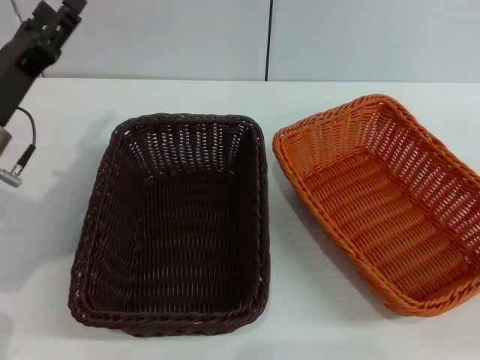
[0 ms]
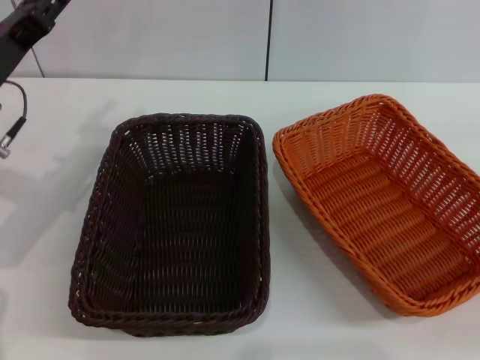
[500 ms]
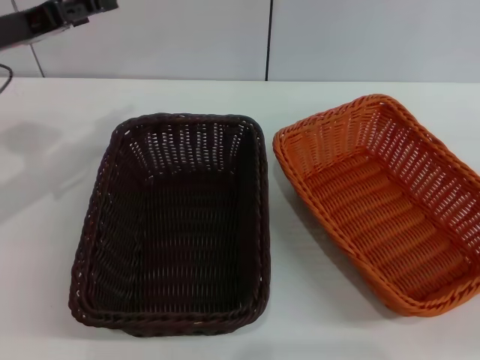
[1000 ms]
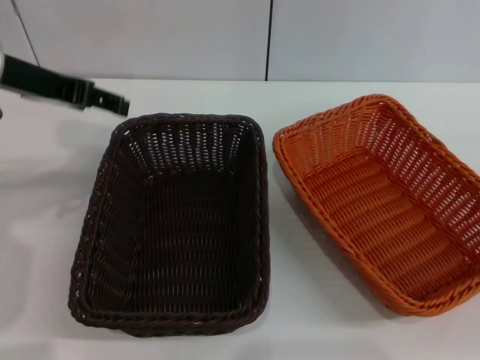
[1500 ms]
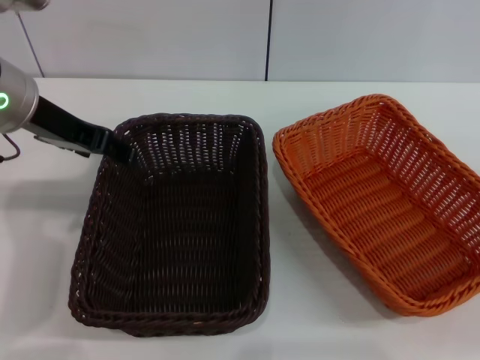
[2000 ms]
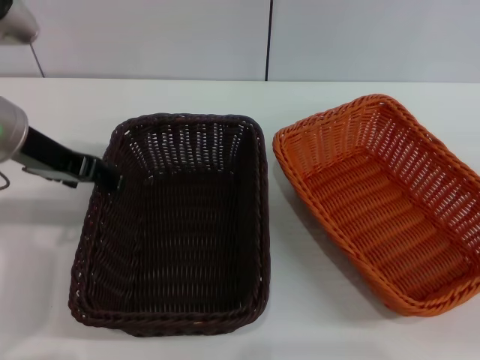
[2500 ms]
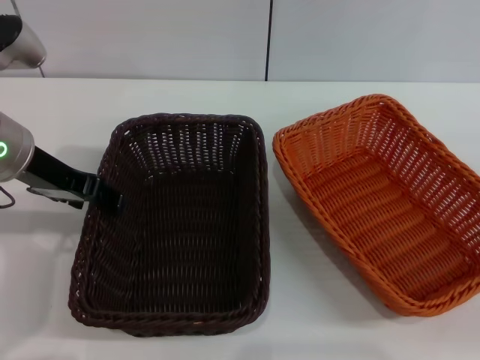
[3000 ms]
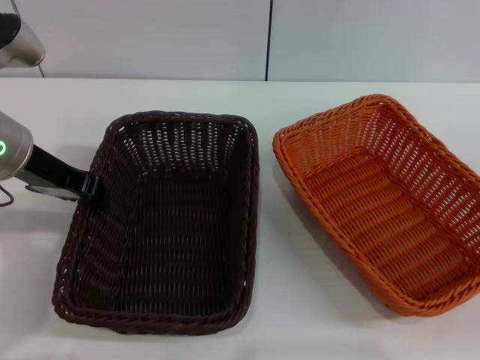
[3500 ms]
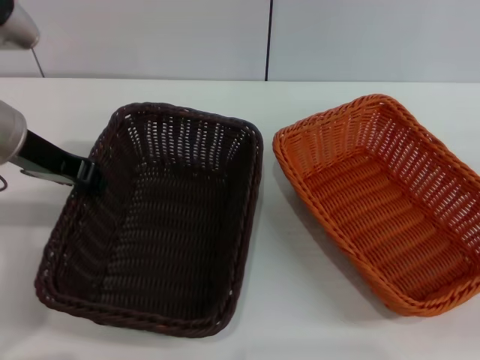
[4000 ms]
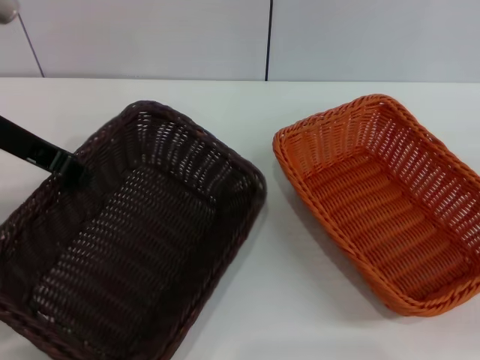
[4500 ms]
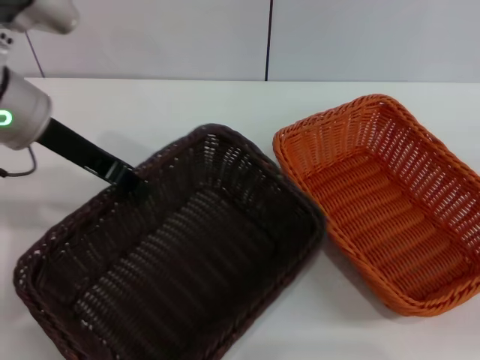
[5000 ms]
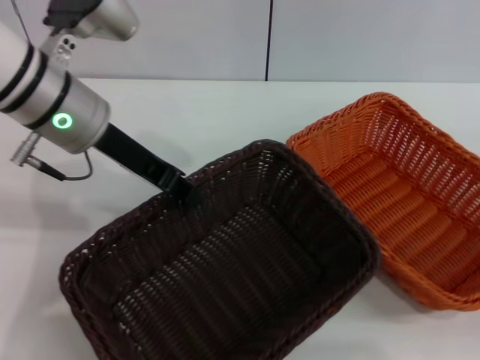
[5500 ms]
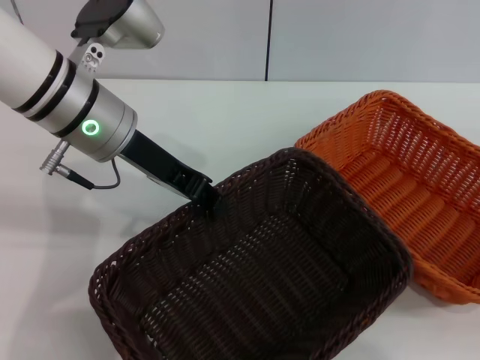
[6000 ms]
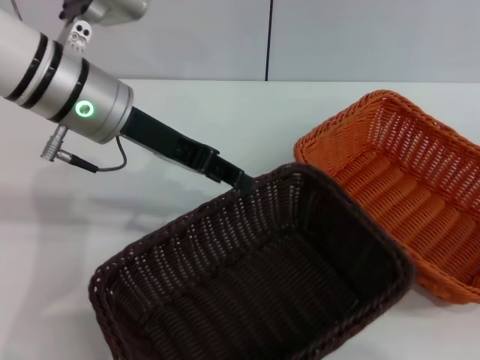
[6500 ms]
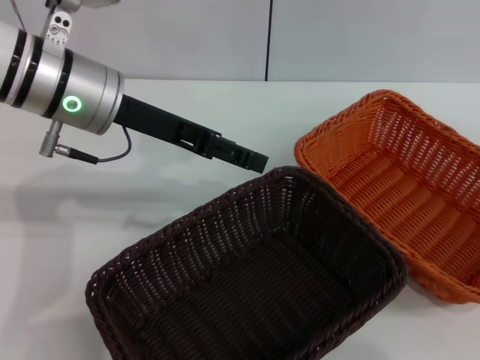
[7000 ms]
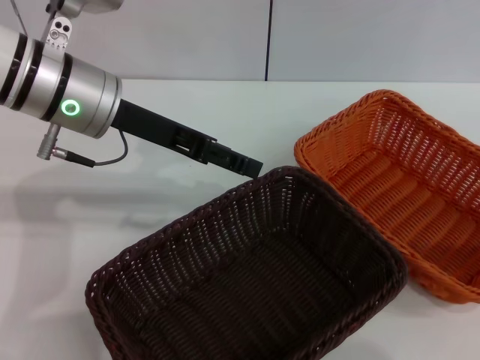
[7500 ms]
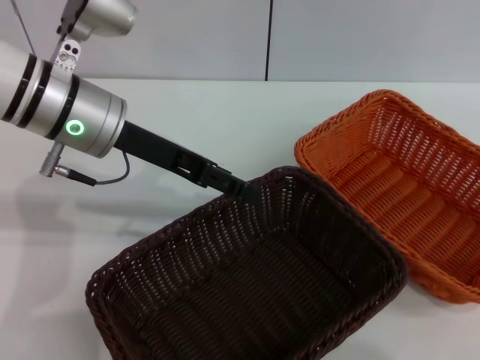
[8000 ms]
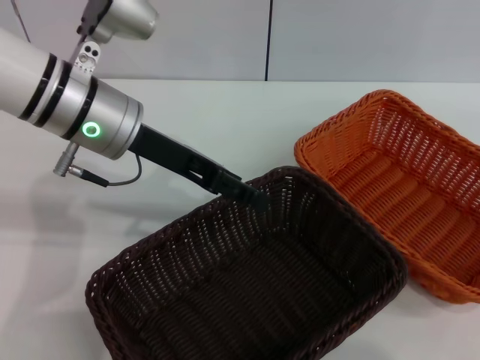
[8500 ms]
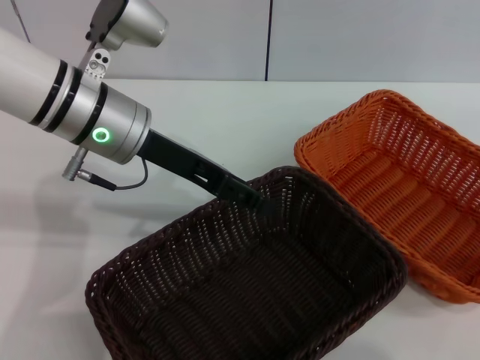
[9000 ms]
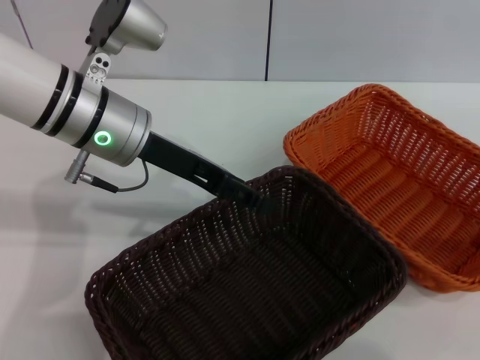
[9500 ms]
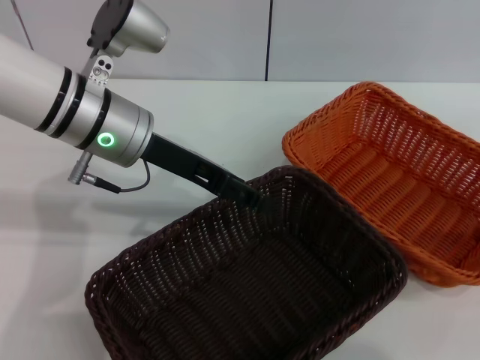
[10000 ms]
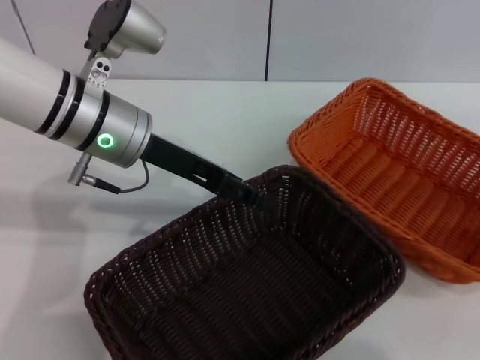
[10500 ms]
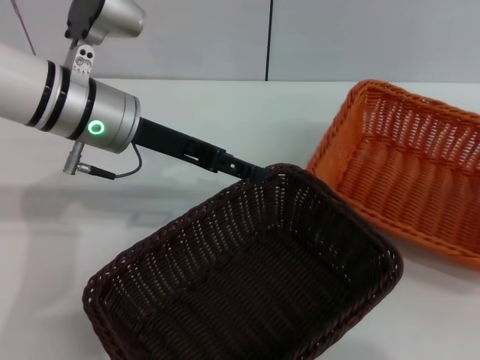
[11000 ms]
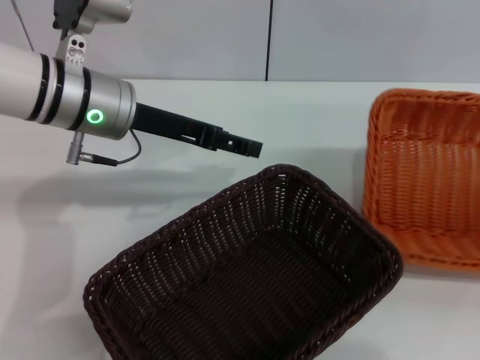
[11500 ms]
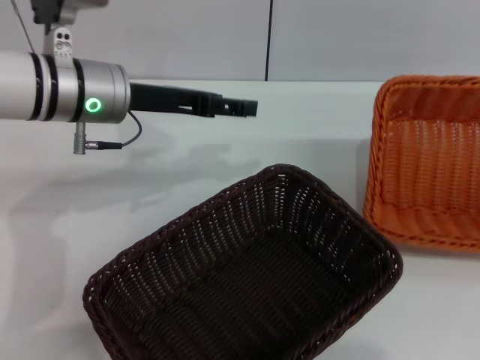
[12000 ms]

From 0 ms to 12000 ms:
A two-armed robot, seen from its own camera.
Step, from 0 ms to 4000 ms: Pick up the dark basket with the left gripper.
Step, from 5000 ms to 6500 ms: Place the dark basket in the center of view with the left gripper.
Step, from 7000 ms to 10500 ms: Pick up the light basket with the right gripper.
From 0 ms to 2000 ms: The left gripper travels upward by about 10 cm.
From 2000 ms to 4000 ms: The left gripper closes up.
From 4000 ms to 6000 ms: The left gripper shifts roughly 10 cm to the right.
From 6000 ms to 8000 ms: The right gripper moves upward, about 15 cm. The left gripper opens.
From 8000 ms to 10000 ms: The right gripper is displaced downward by roughly 5 cm.
From 10000 ms to 12000 ms: The right gripper shifts by some 5 cm, and closes its fingers.

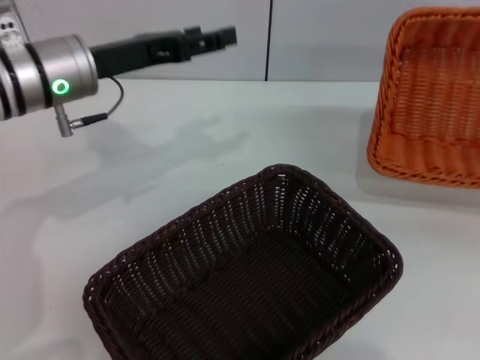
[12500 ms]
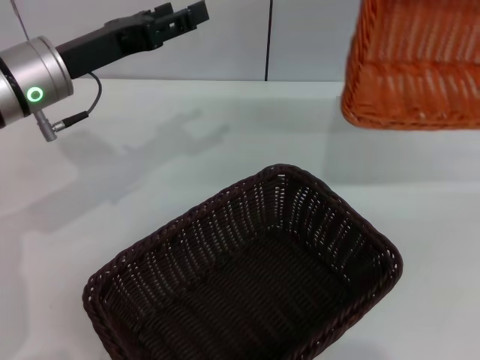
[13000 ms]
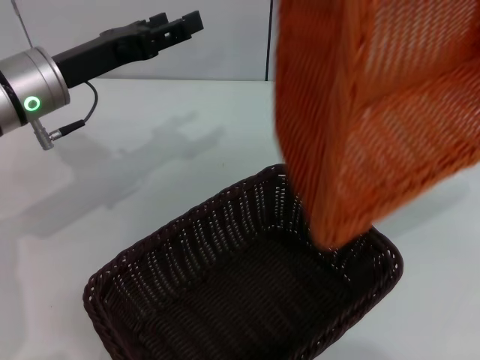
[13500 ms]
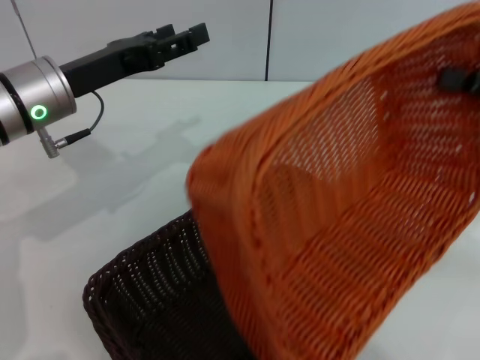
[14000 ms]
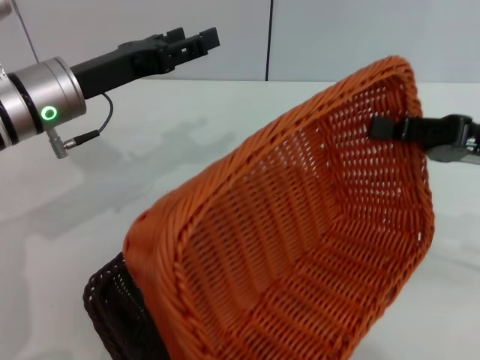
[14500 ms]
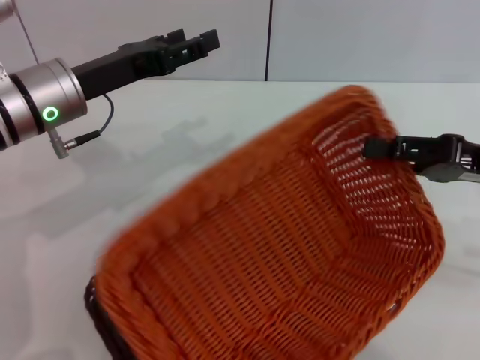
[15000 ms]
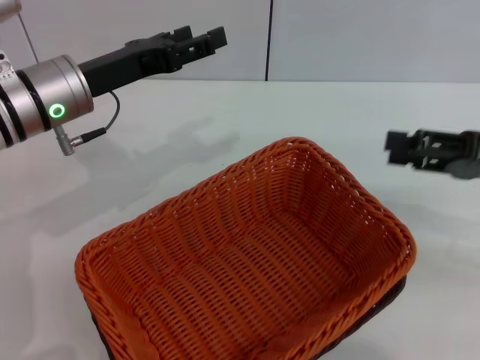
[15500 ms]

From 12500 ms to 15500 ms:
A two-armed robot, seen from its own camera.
Step, from 12500 ms to 15000 ms: Place the light basket on the dark basket with the right gripper.
From 12500 ms to 14000 ms: The right gripper goes about 15 cm to the left.
From 14000 ms to 15500 ms: The right gripper opens.

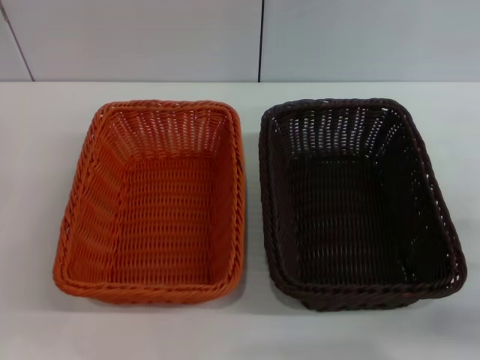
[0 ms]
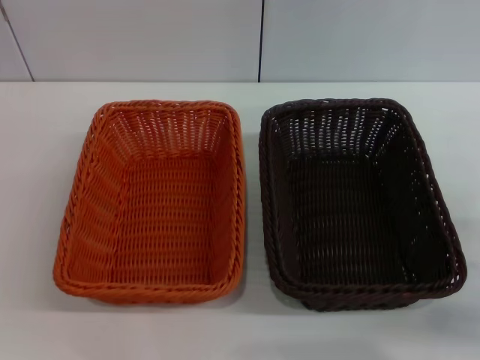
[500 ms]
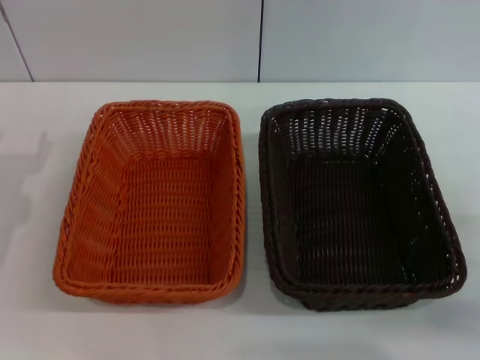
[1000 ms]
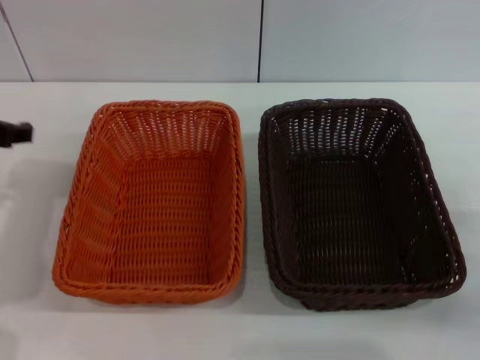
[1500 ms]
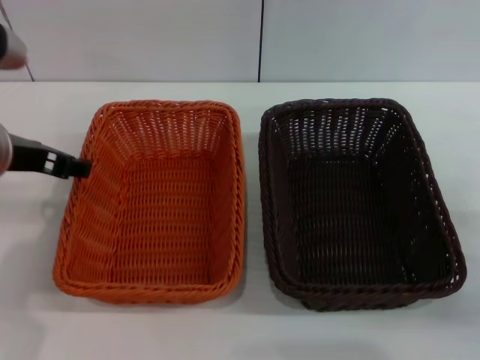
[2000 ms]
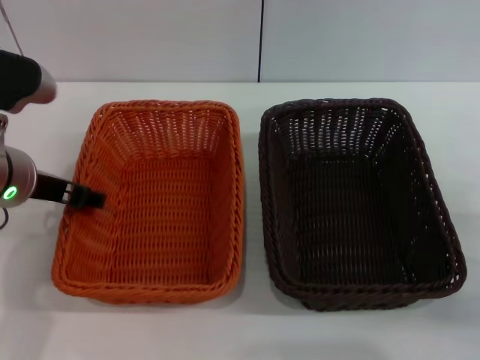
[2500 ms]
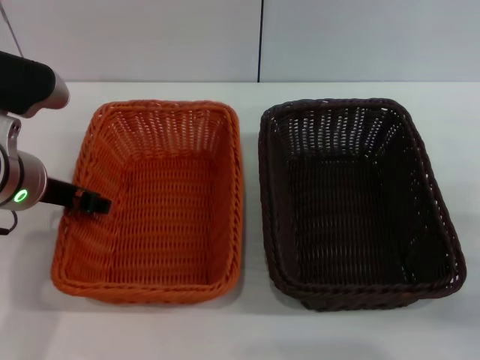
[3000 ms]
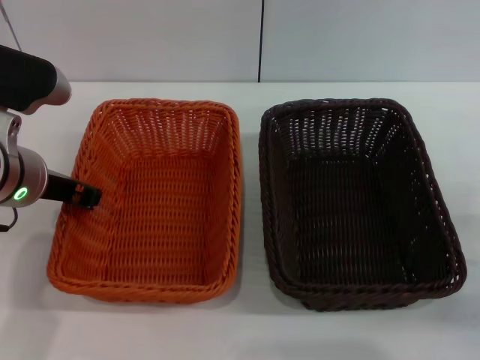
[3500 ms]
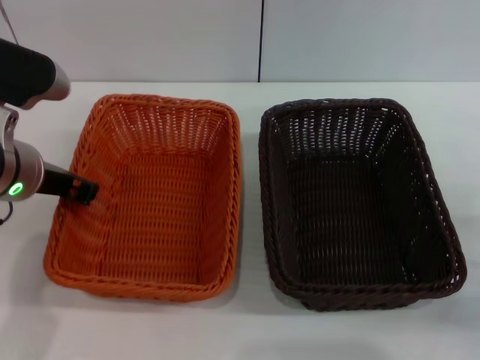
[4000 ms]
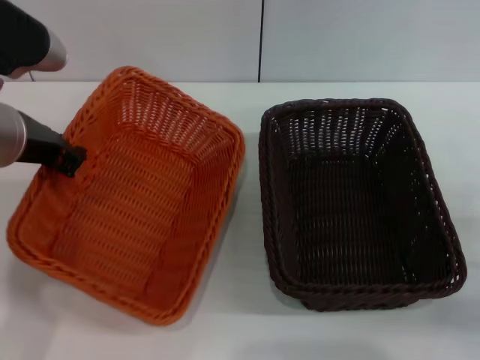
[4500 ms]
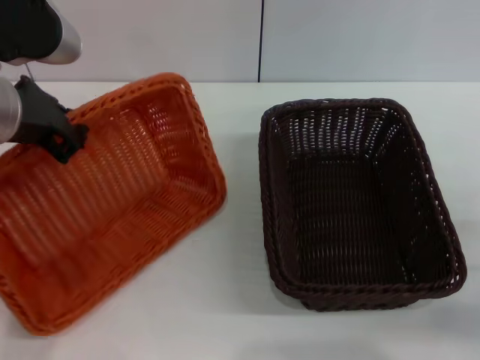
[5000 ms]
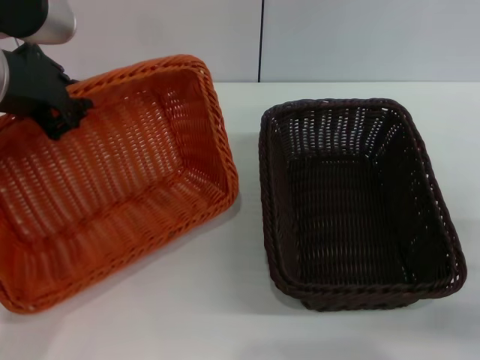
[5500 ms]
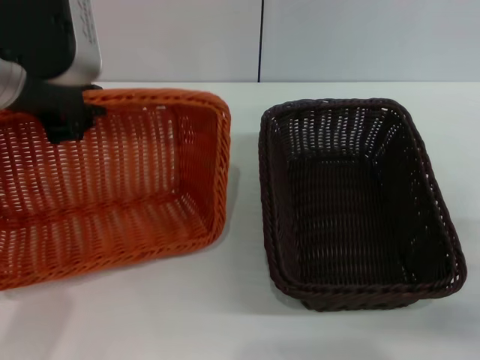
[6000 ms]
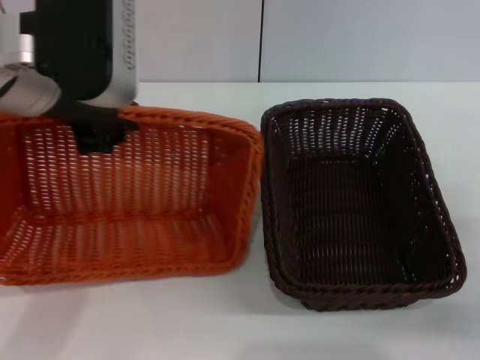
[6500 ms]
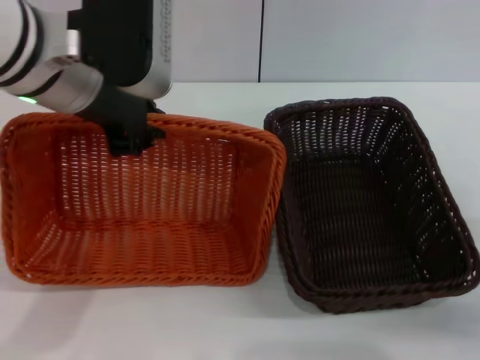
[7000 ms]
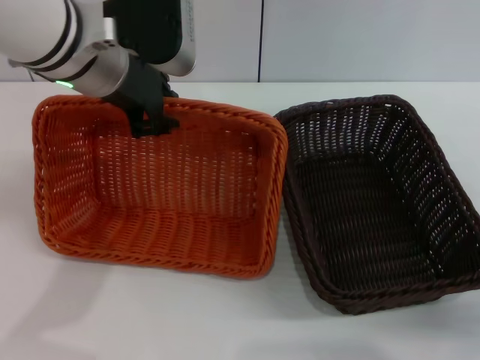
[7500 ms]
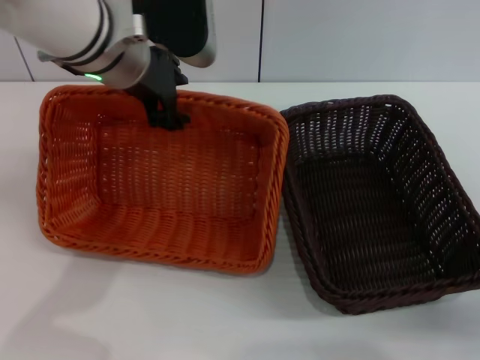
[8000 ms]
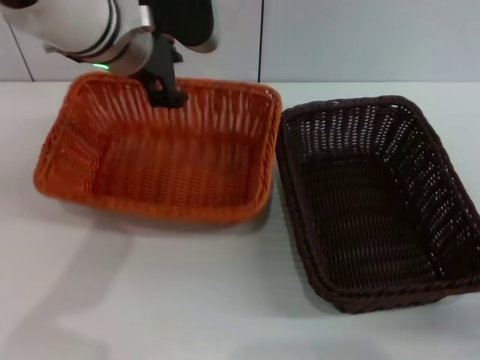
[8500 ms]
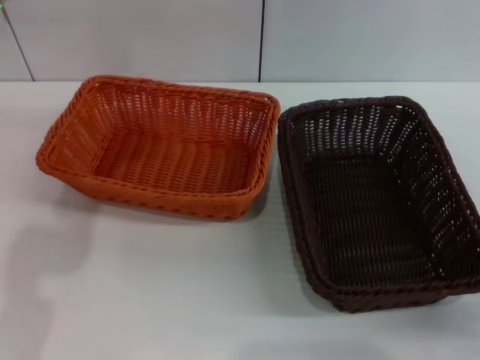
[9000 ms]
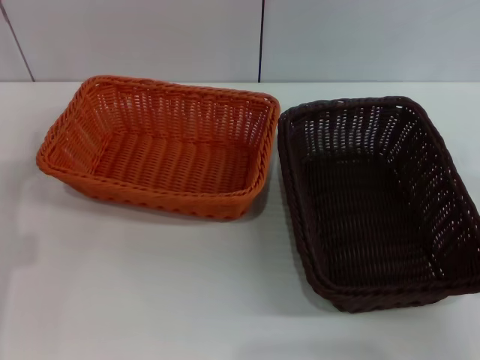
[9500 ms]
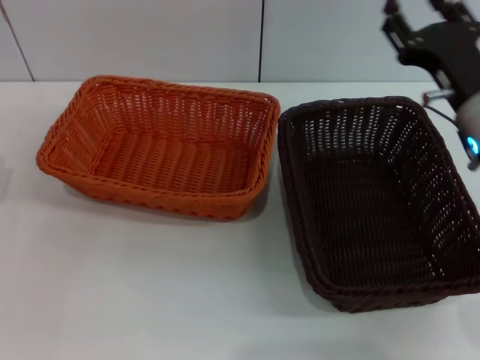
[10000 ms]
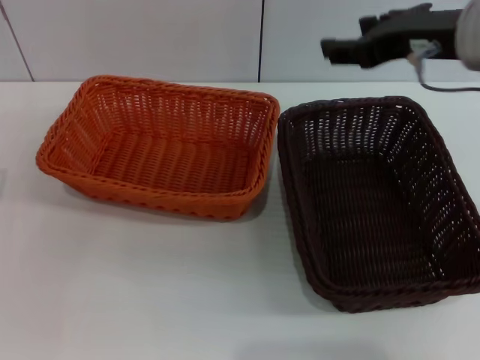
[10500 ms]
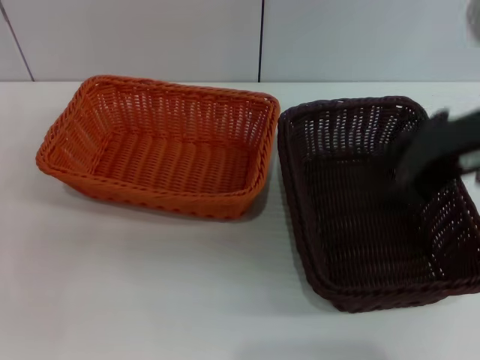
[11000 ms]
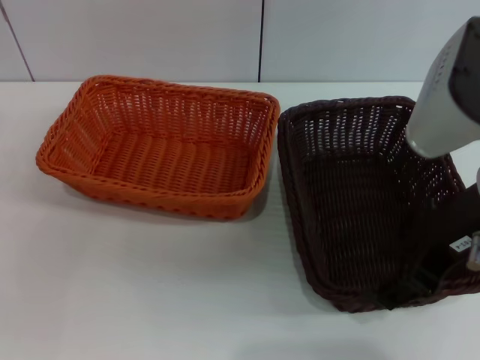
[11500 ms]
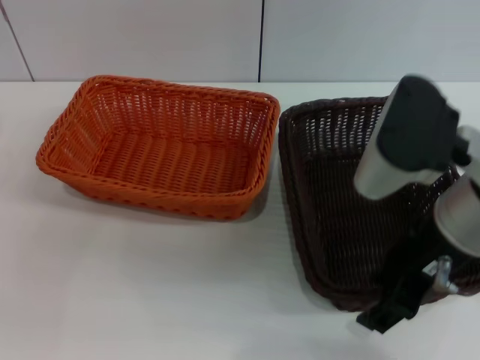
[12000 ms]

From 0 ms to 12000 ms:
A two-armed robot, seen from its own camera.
Step, from 0 ms to 4000 ms: Pick up the light basket with the left gripper.
Step, from 4500 ms to 8500 ms: Place the light basket in the center of view with the left gripper.
From 0 ms to 2000 ms: The left gripper travels upward, to the right and forward by approximately 20 cm.
From 2000 ms to 4000 ms: The left gripper closes up.
From 4000 ms to 6000 ms: The left gripper moves upward, some 10 cm.
From 6000 ms to 8000 ms: The left gripper goes roughly 10 cm forward and to the right, and opens up.
From 8000 ms to 10000 ms: The left gripper travels to the left, backward and downward by approximately 30 cm, and opens up. Meanwhile the right gripper goes approximately 20 cm forward, upward and to the left.
From 10000 ms to 12000 ms: The right gripper goes about 10 cm upward, backward and to the left.
